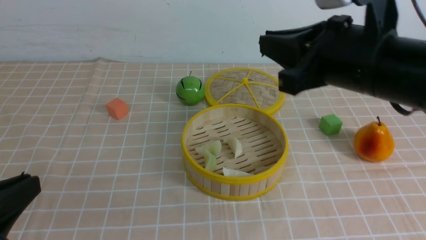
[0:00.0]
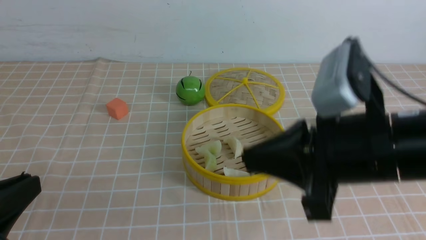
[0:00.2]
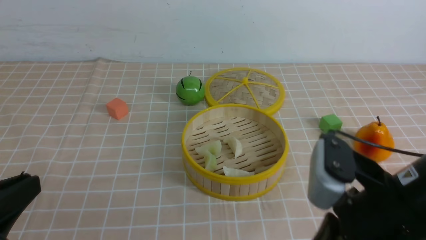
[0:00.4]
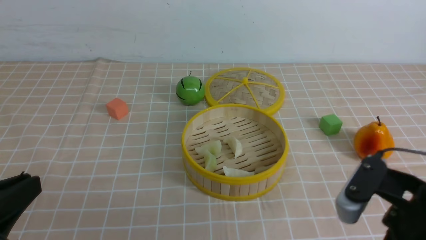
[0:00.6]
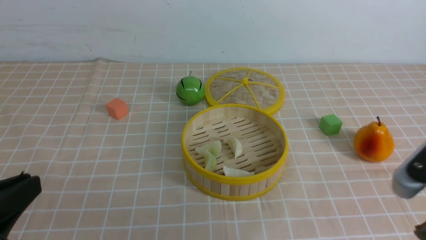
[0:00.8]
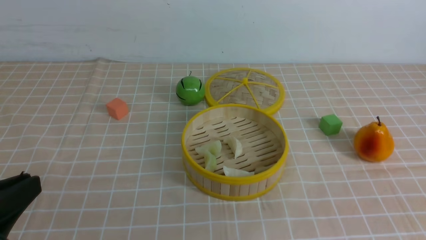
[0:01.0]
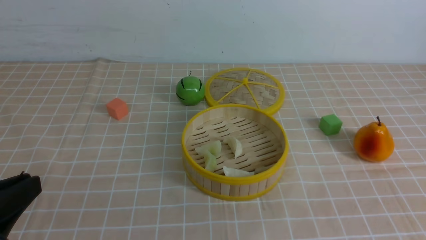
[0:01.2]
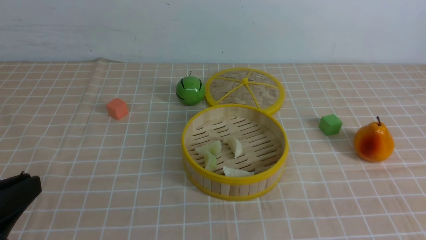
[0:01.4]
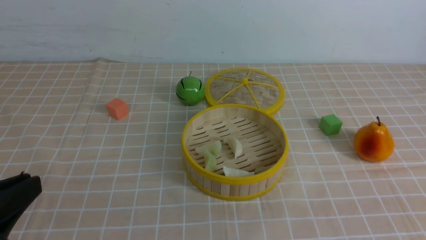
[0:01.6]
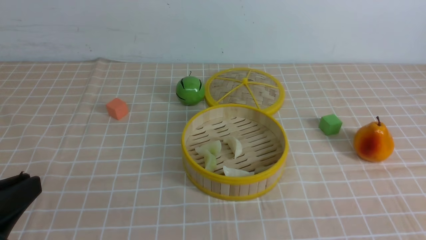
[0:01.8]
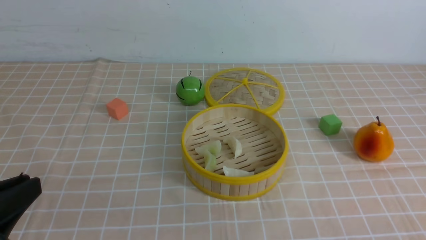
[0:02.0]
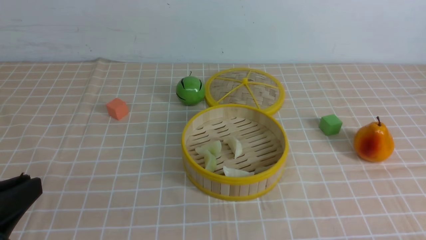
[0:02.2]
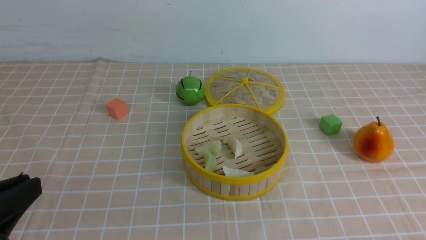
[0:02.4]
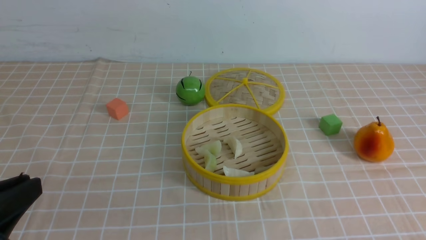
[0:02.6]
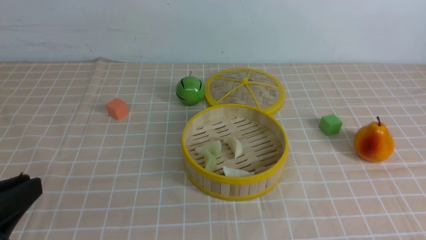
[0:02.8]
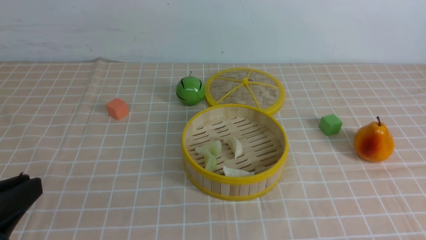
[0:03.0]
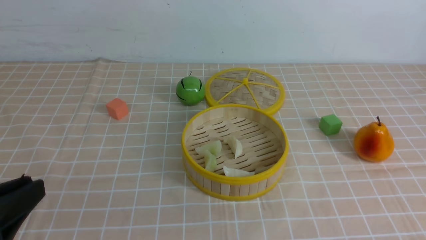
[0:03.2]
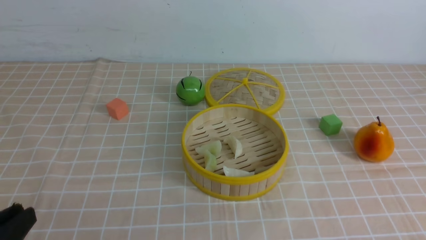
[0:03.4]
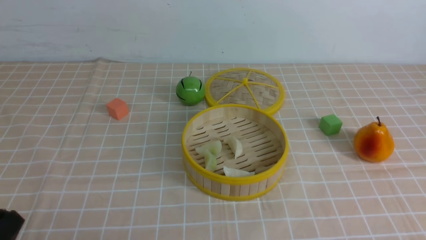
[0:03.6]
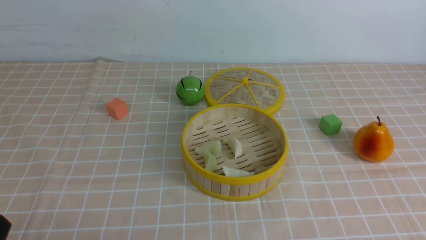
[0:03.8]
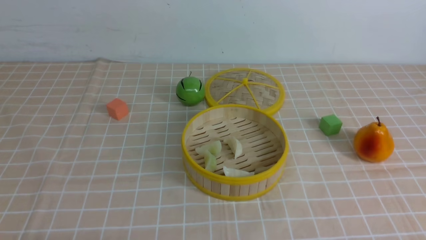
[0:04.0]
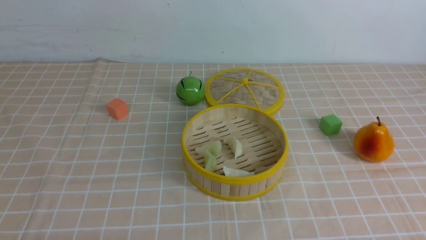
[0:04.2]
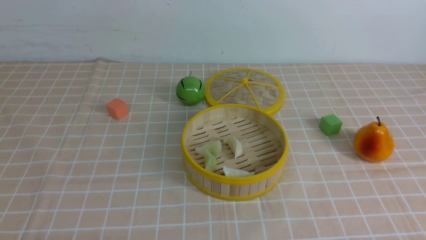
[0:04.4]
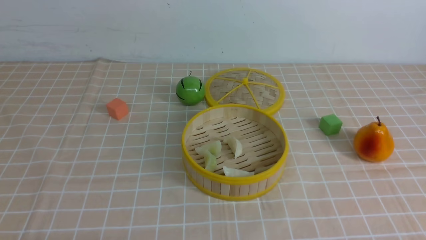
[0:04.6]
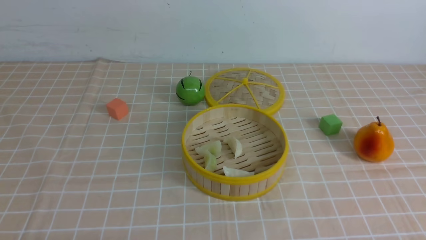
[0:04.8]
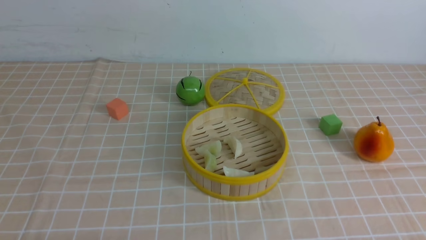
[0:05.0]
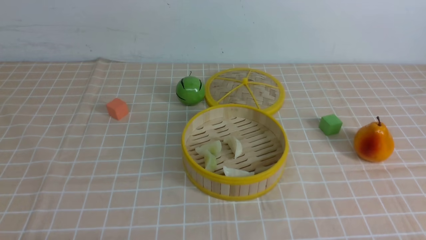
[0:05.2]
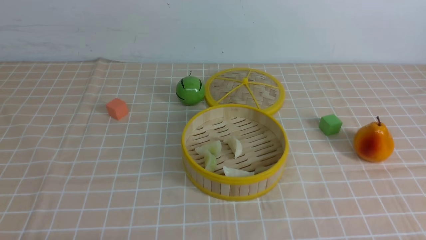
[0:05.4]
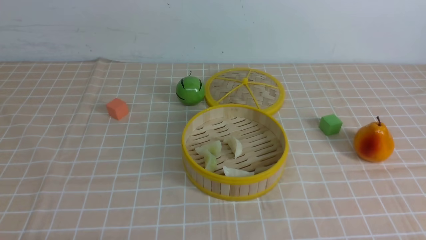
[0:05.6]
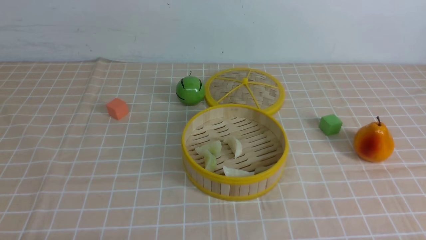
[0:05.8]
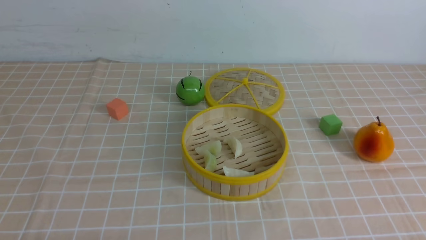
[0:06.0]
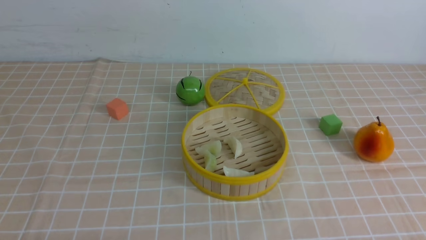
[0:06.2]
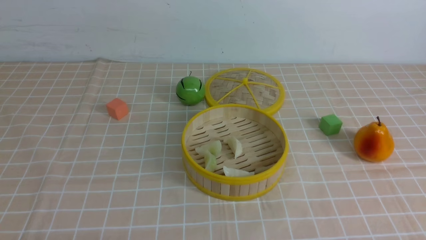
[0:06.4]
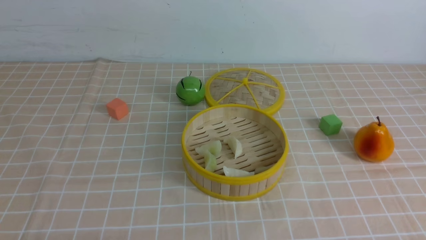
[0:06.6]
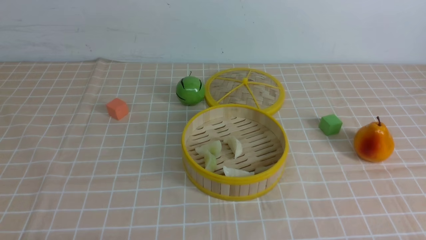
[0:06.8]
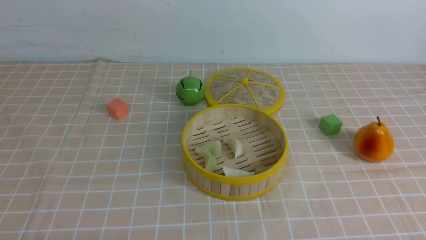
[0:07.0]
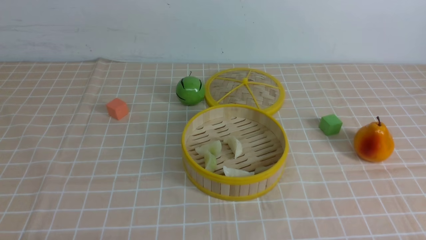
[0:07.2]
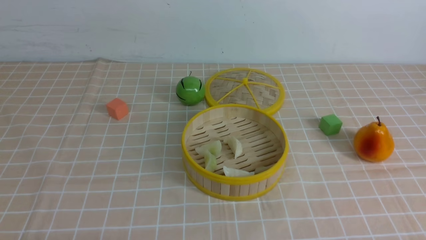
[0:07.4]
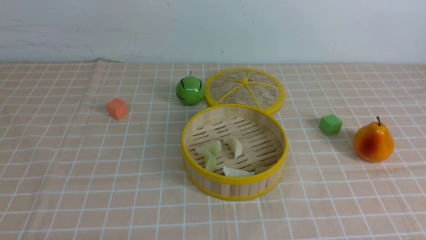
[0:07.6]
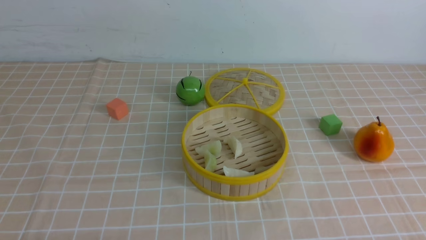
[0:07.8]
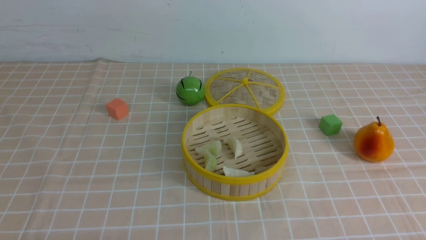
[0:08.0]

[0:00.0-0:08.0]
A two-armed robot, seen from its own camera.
Task of the whole recording: put the dumplings into the steamer on the table with the brown tablecloth.
0:00.0 to 0:01.6: The right gripper moves backward, to the right and downward, approximately 25 cm.
0:03.2 to 0:04.8: The left gripper travels downward by about 10 cm.
0:04.8 to 0:08.0: Neither gripper changes place.
